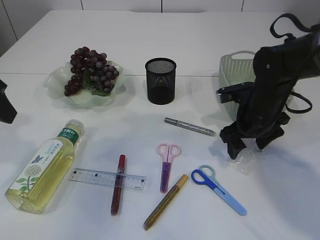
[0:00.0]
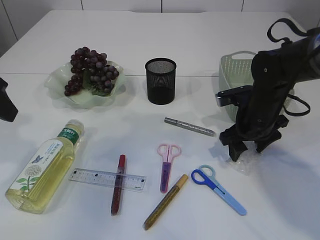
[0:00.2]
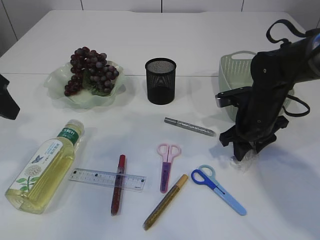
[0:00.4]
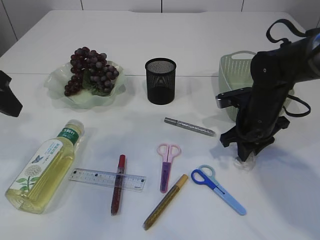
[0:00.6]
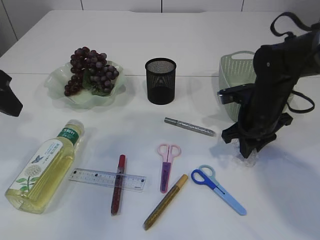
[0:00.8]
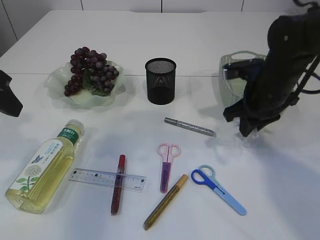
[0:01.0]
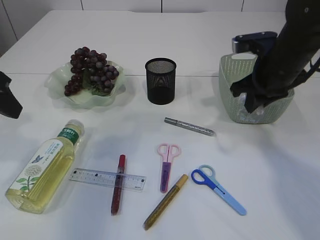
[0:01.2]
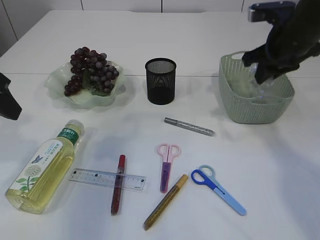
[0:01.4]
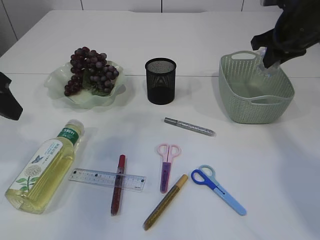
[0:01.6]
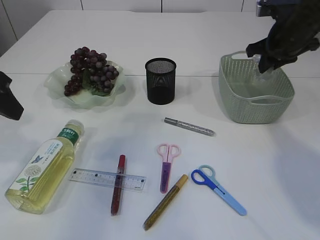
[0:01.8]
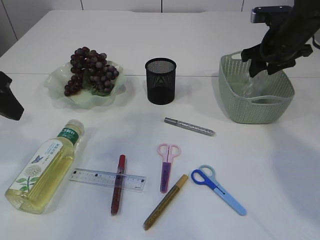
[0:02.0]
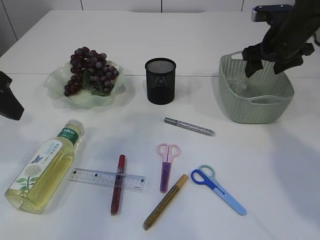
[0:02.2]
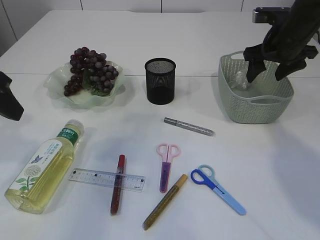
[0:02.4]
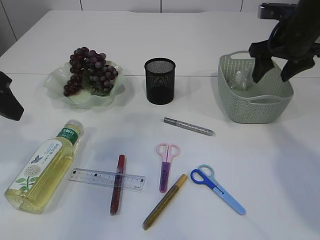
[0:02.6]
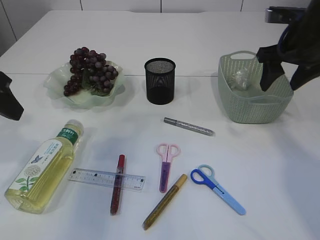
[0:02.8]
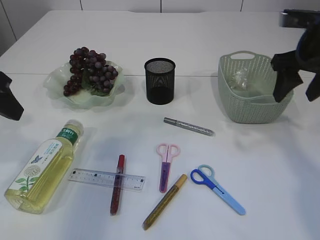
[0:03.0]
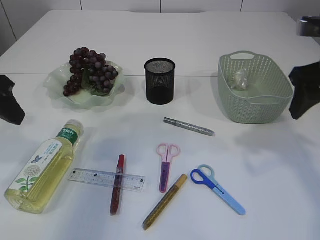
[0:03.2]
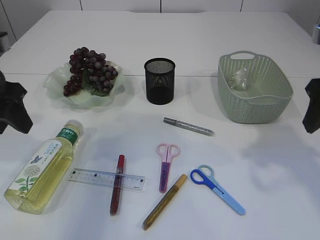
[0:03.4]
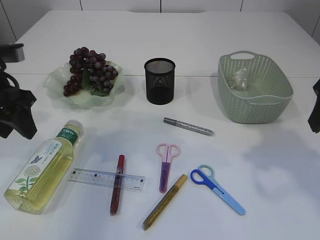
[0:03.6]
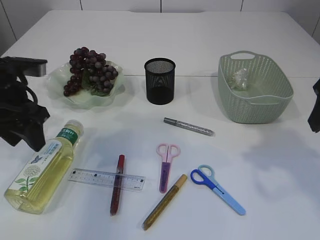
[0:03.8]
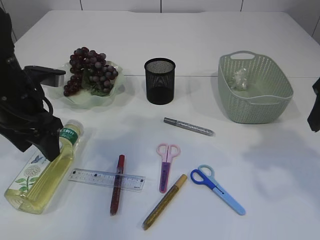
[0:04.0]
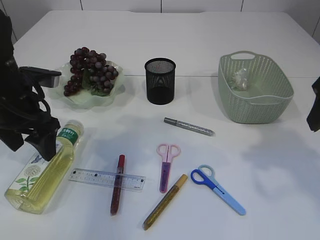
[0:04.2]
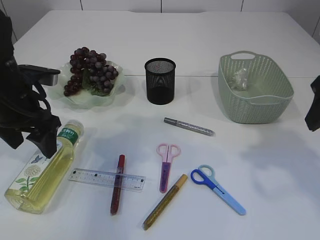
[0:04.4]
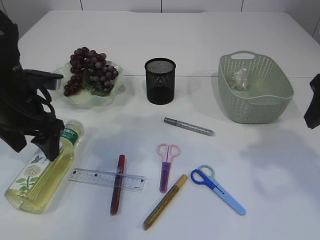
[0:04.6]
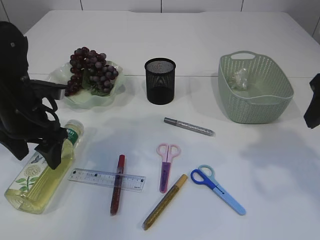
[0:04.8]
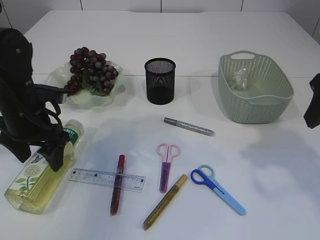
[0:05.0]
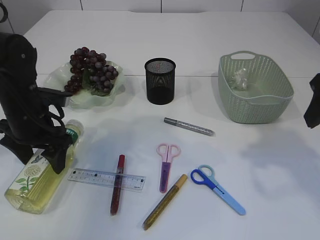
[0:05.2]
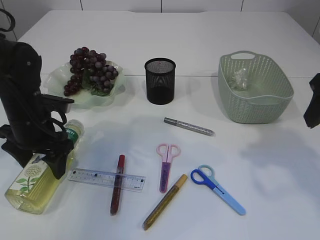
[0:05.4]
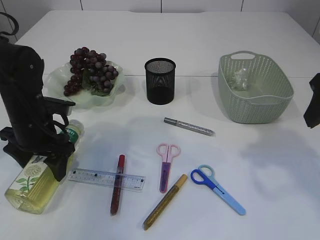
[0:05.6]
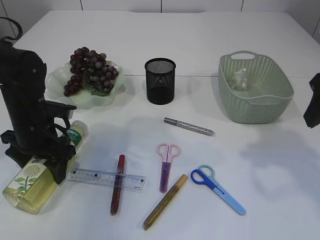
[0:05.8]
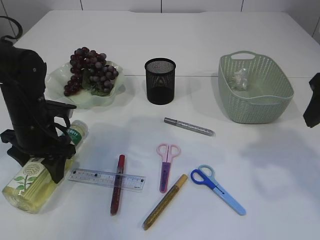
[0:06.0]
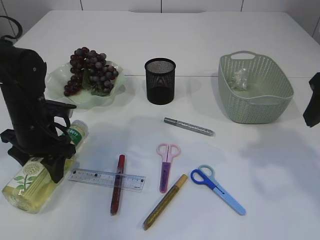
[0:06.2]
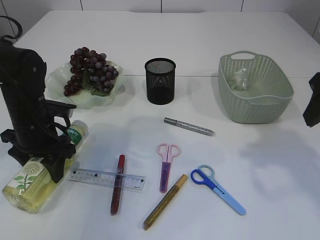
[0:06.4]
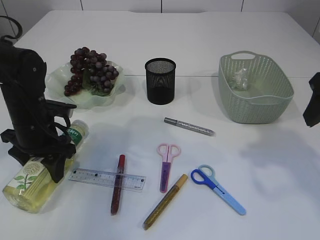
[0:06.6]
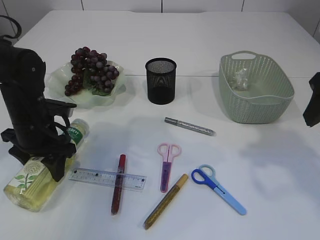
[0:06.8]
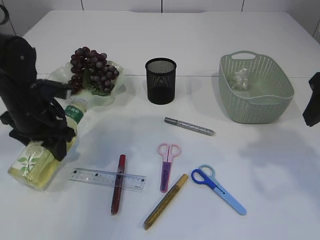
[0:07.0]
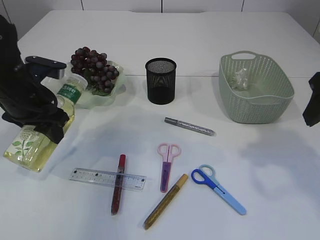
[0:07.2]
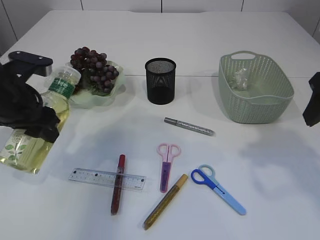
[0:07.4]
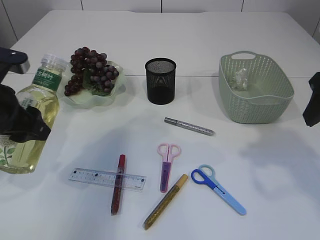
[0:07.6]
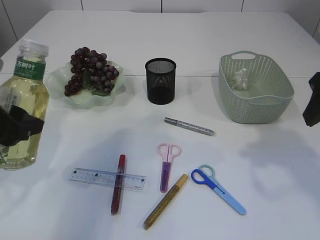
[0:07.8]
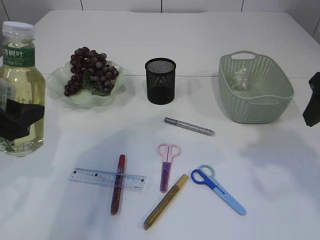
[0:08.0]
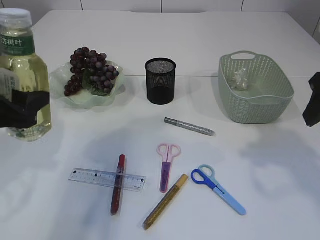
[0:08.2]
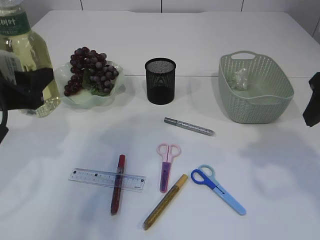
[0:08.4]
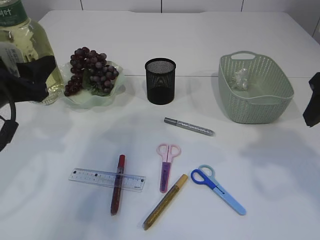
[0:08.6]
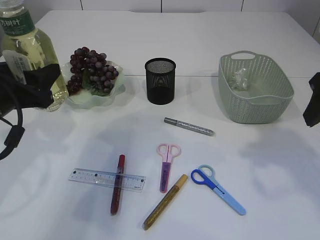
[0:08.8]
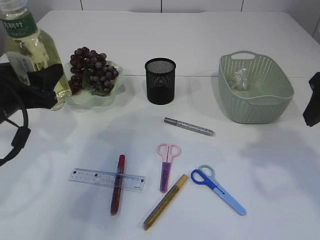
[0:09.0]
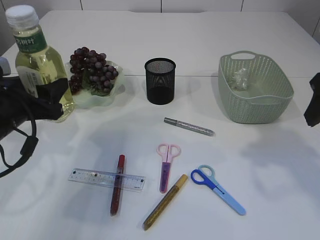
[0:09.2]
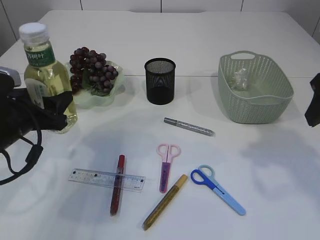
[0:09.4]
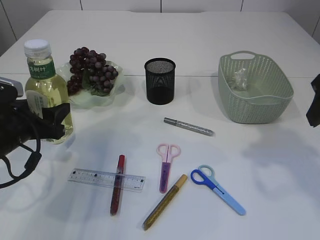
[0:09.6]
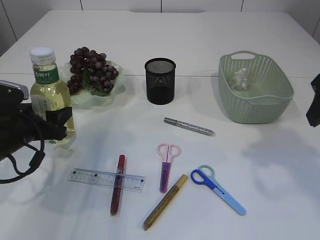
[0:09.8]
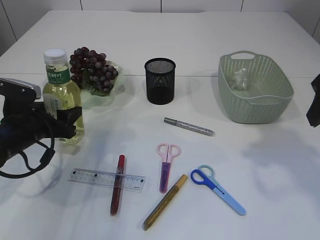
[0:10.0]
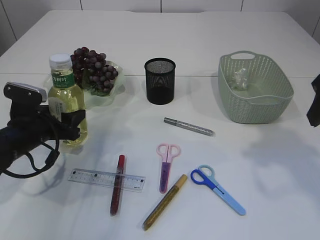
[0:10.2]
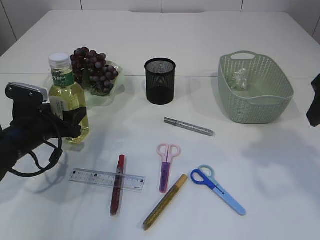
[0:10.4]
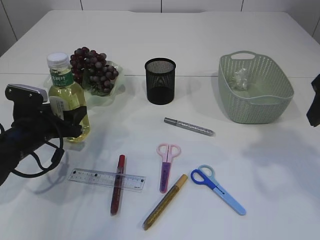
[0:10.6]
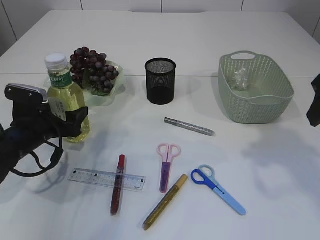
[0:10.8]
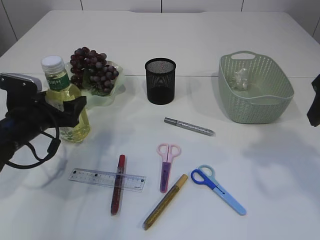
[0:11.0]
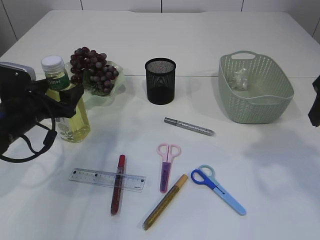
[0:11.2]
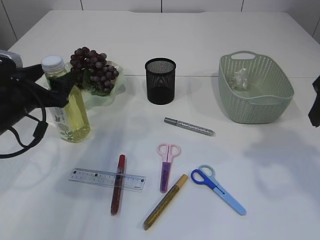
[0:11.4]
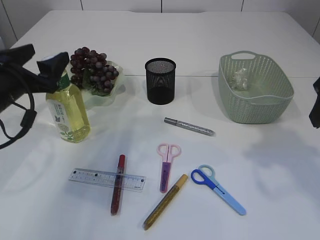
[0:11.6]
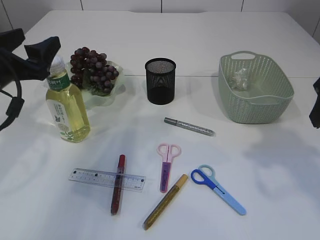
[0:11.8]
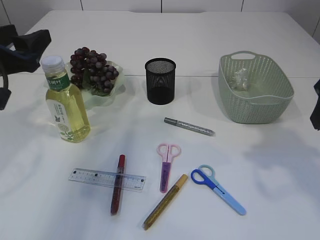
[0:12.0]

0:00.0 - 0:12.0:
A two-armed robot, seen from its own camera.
Step, 0:01.2 - 0:02.8: Place the plastic in the basket.
Step, 0:03.0 - 0:07.4: Pick up the bottle with the right arm.
Step, 0:07.6 - 0:11.8: Place the bottle.
0:00.0 - 0:01.6: The right gripper is displaced upward and to the right by roughly 15 cm, and closes.
0:01.6 - 0:03.0: The right gripper travels backward by about 5 cm, and opens its fingers.
0:03.0 - 0:04.4: The left gripper travels downward and forward by roughly 10 cm, and opens; the right gripper goes roughly 10 cm backward.
0:04.4 - 0:06.0: The left gripper shifts about 10 cm downward.
0:06.0 - 0:07.6: The left gripper goes roughly 10 cm upward and backward.
0:09.0 - 0:10.4: The left gripper travels downward and forward by approximately 15 cm.
0:10.4 - 0:12.0: The left gripper moves upward, some 15 cm.

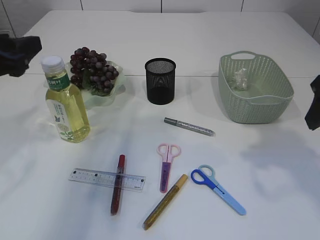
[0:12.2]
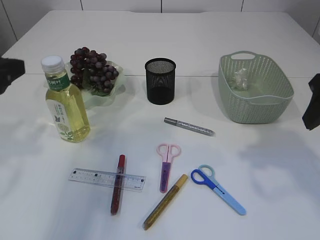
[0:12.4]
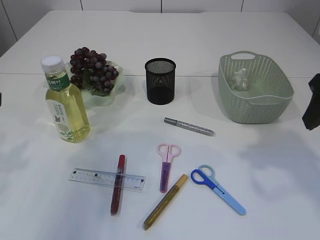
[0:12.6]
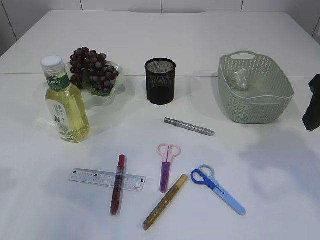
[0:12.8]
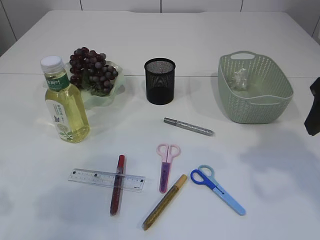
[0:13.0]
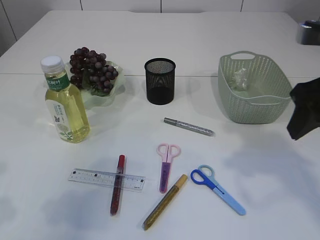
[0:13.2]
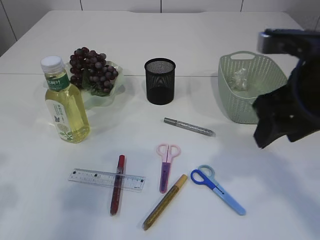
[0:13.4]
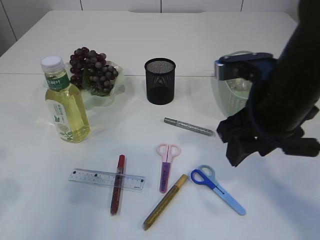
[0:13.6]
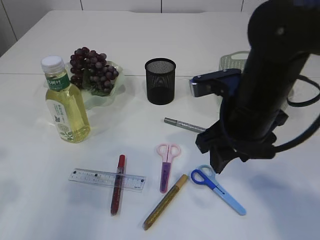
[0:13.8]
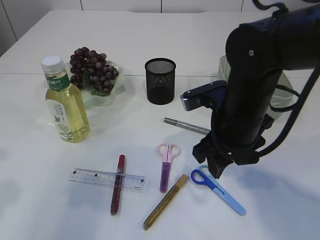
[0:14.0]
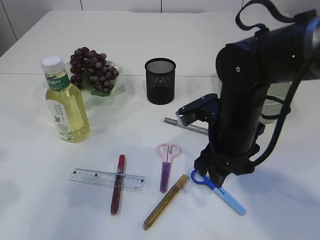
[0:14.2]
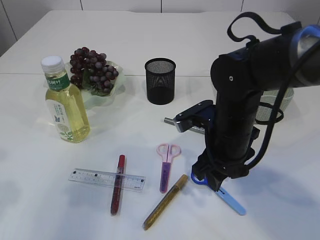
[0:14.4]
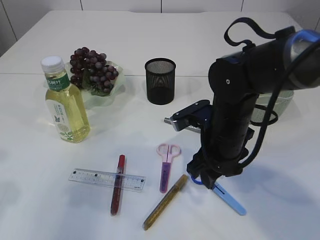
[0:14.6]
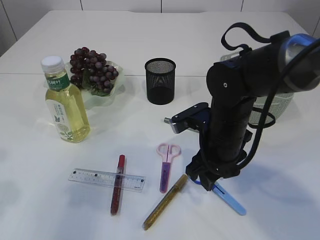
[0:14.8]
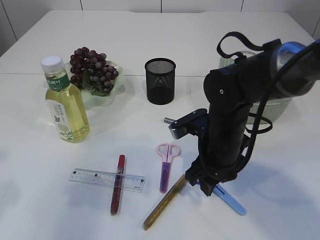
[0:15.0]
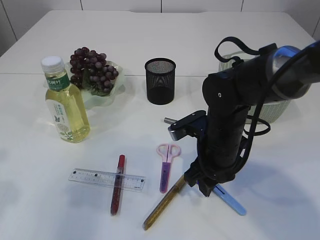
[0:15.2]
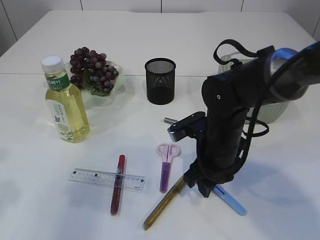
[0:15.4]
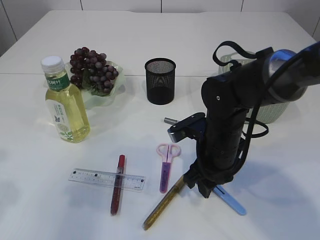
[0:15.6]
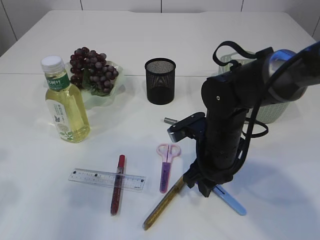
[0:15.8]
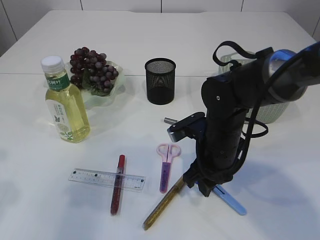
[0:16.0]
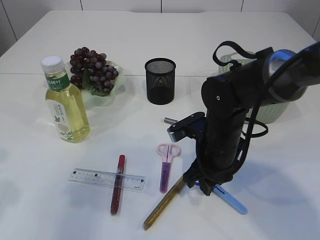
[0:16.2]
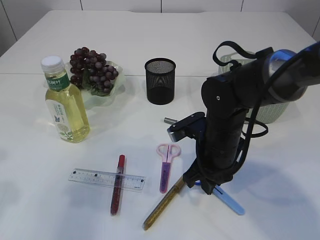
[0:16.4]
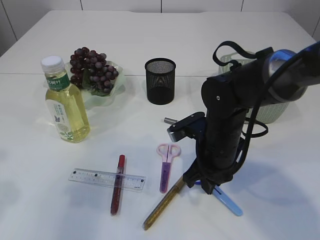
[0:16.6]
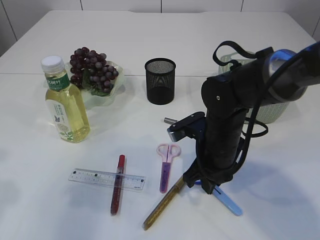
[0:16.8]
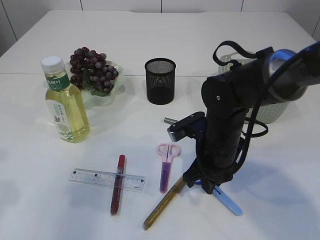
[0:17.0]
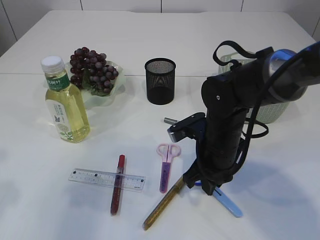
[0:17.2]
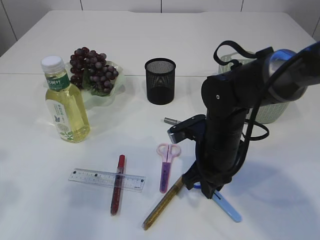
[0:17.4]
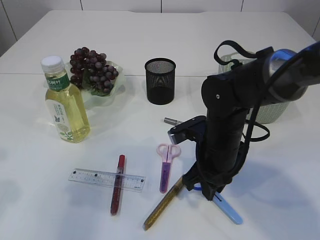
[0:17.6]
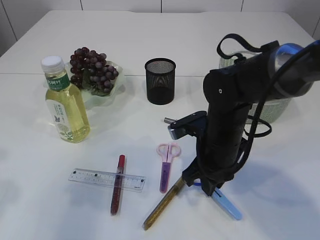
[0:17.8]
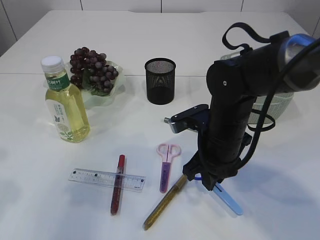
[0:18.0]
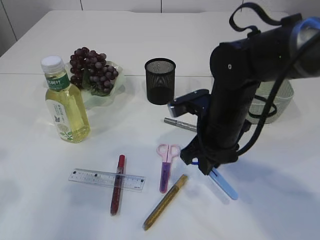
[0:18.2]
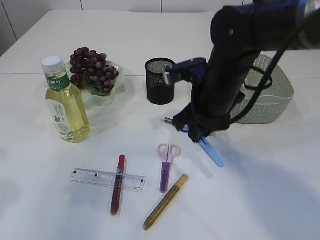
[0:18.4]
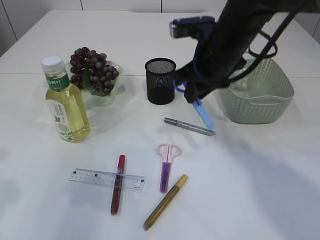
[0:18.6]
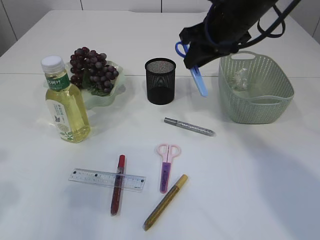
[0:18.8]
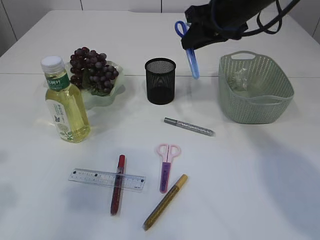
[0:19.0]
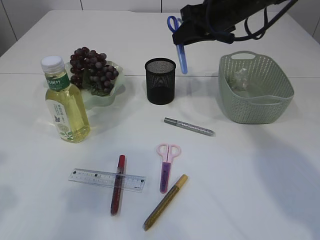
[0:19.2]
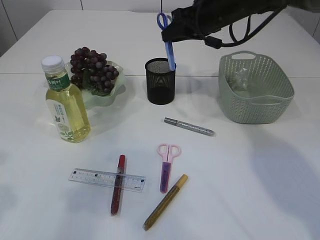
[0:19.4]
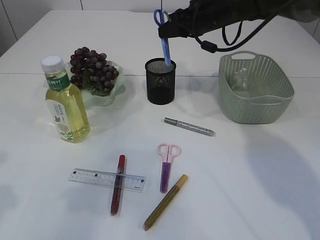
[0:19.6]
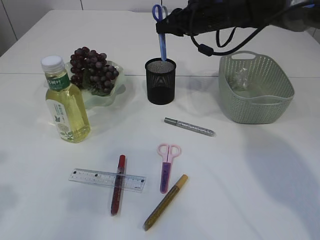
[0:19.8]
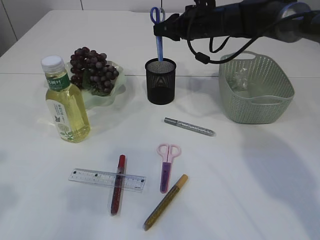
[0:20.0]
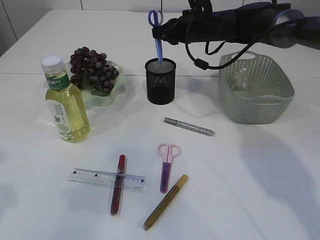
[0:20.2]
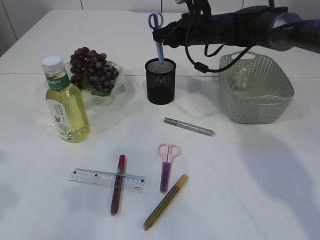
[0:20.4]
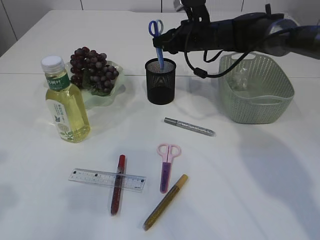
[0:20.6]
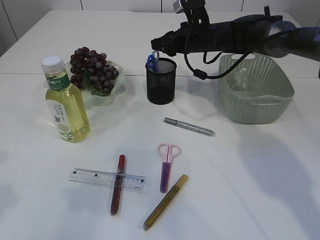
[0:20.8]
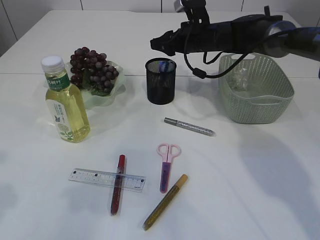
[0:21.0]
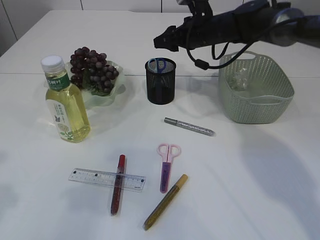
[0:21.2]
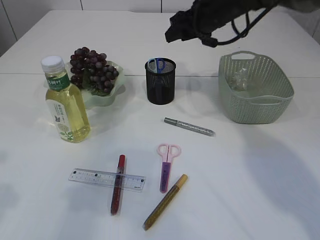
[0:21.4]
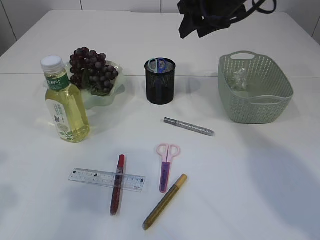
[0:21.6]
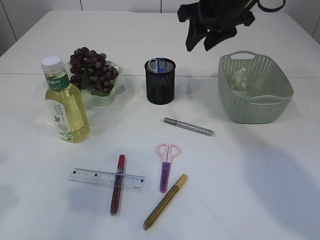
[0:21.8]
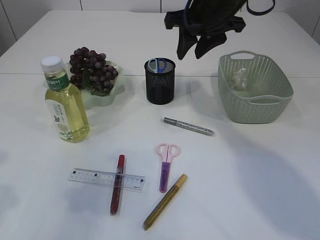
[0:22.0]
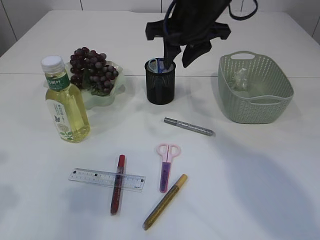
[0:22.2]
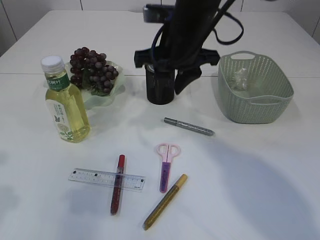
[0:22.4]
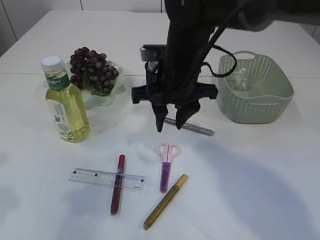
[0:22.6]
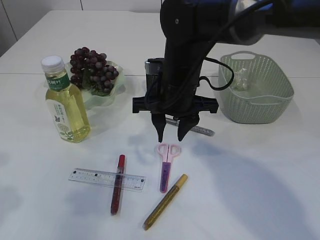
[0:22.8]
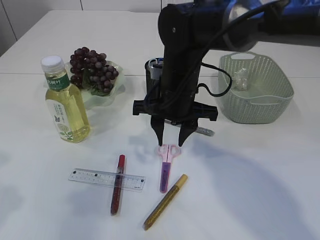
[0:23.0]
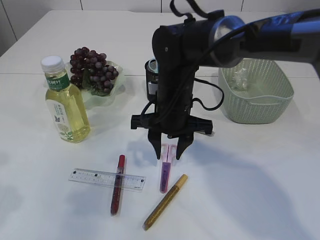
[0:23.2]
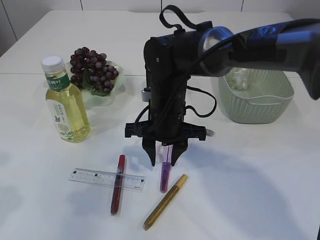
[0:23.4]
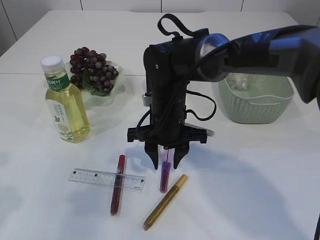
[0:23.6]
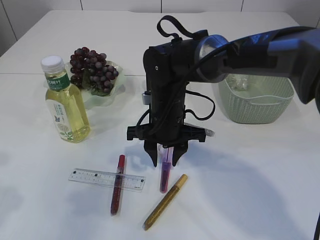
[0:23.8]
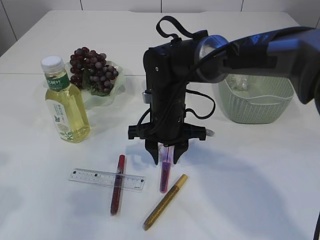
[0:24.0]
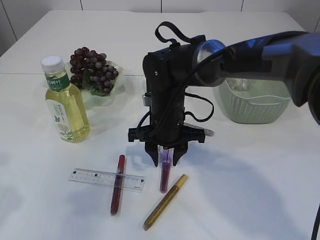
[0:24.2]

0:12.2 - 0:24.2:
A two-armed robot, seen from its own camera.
Step, 0:12.2 - 0:18.2: pick up the blue scissors.
Step, 0:18.4 - 0:21.6: Place the blue scissors into the pen holder.
0:12.2 - 0:13.8: The right gripper is displaced to the left and downward by roughly 15 cm. The left gripper moves backward, approximately 10 cm.
0:13.8 - 0:15.2: The right gripper moves downward, about 10 cm.
0:15.2 - 0:16.6: The right gripper closes.
0:16.6 - 0:18.2: The grippers make only small movements.
0:18.2 - 0:19.8: The right gripper goes some 20 cm forward and upward.
0:19.8 - 0:21.2: The right gripper opens.
0:21.2 - 0:22.6: The right gripper is displaced backward and to the left by about 20 cm.
0:22.6 - 0:24.2: The right gripper travels downward by some 10 cm.
